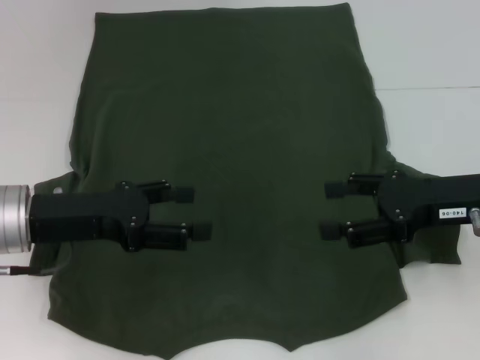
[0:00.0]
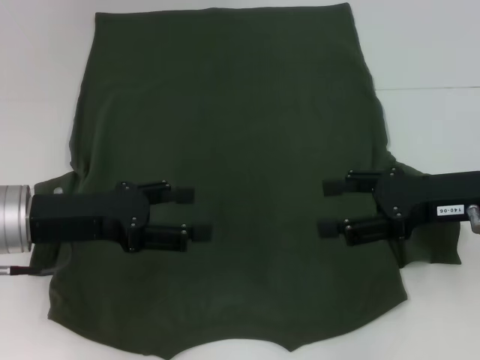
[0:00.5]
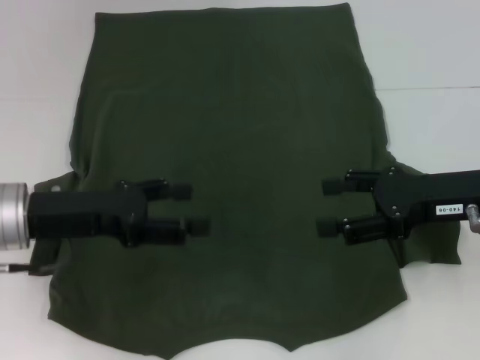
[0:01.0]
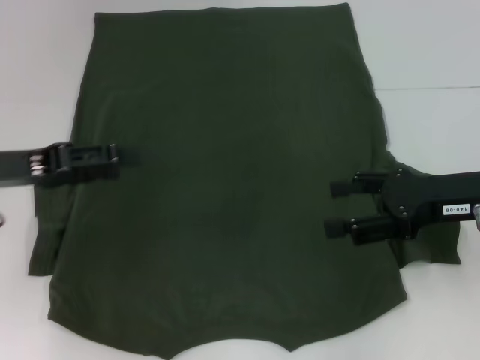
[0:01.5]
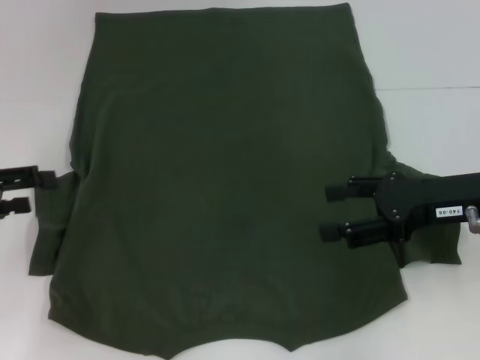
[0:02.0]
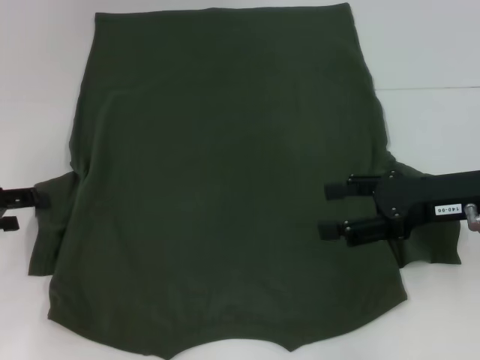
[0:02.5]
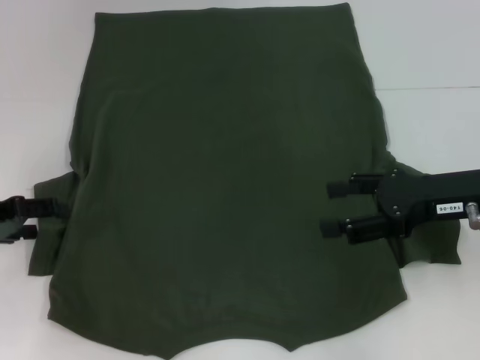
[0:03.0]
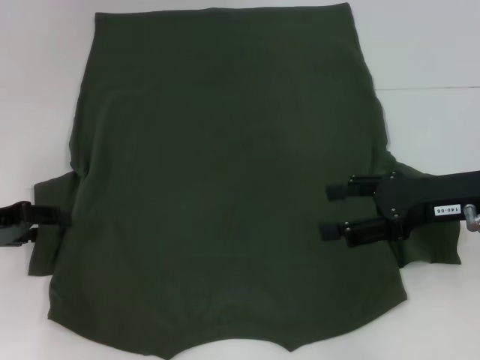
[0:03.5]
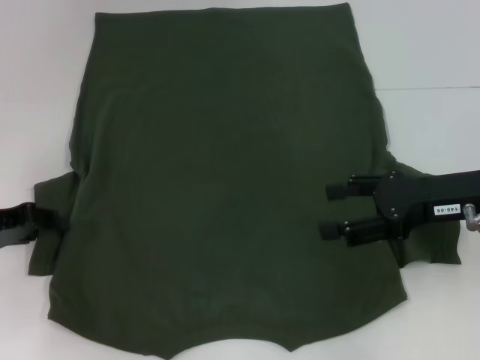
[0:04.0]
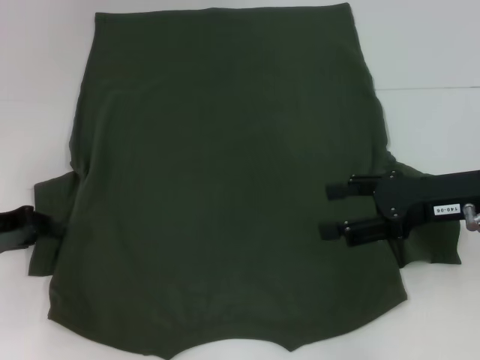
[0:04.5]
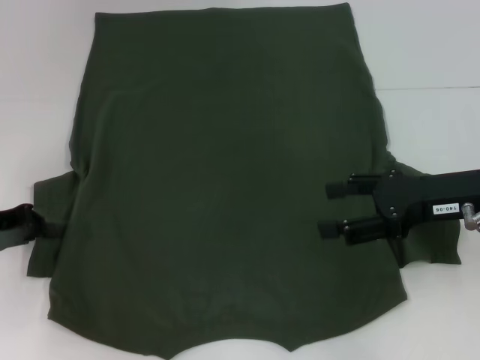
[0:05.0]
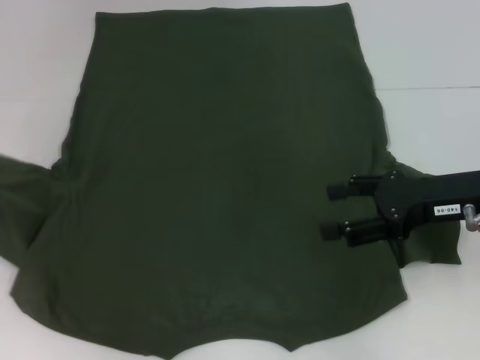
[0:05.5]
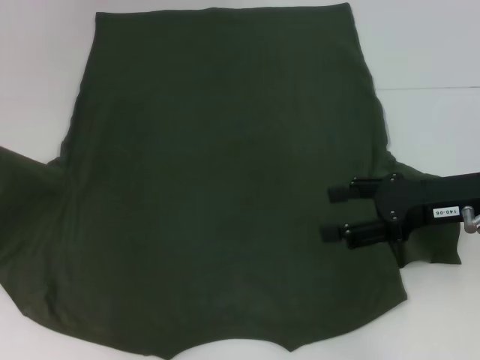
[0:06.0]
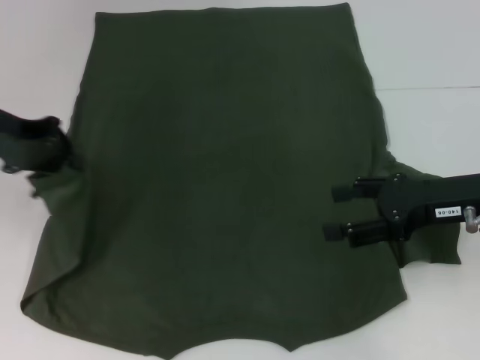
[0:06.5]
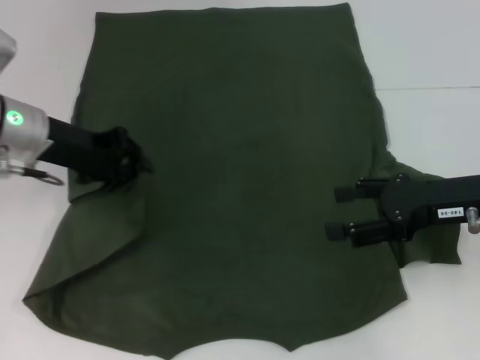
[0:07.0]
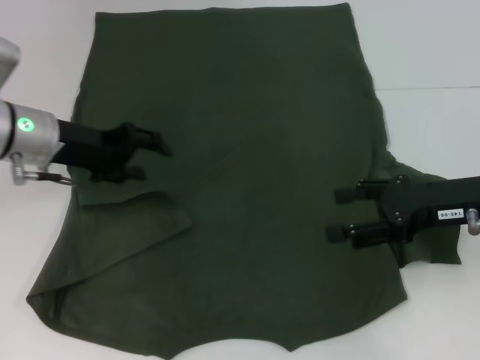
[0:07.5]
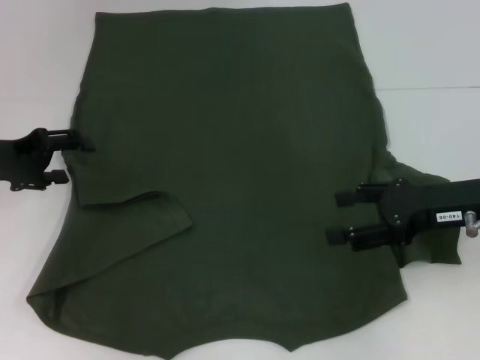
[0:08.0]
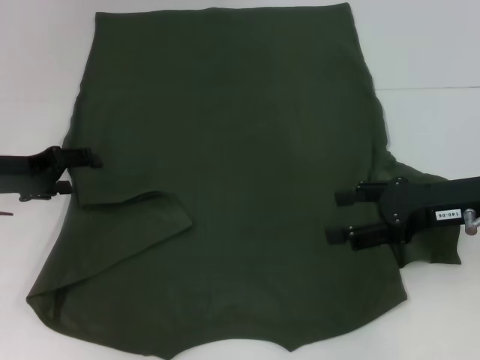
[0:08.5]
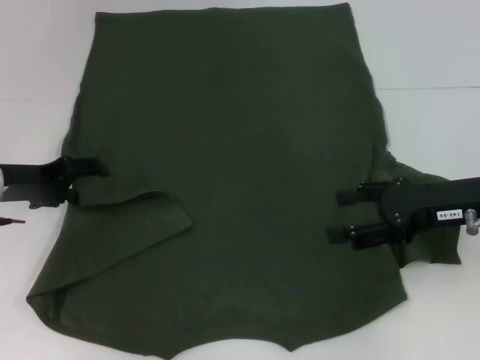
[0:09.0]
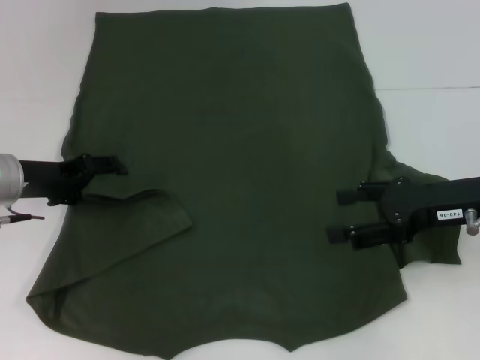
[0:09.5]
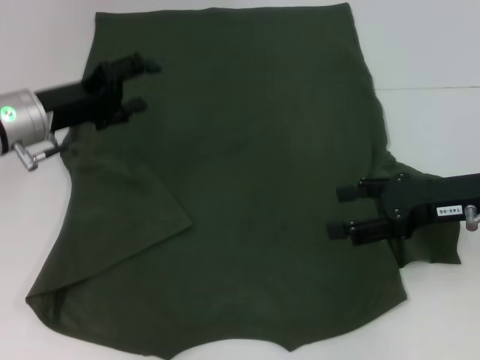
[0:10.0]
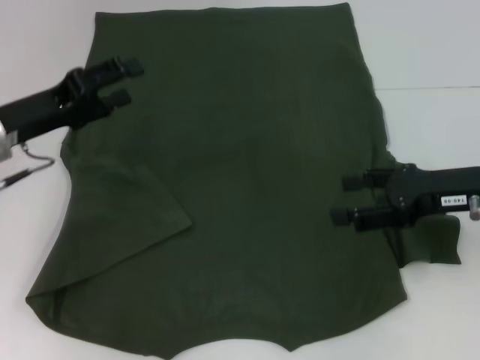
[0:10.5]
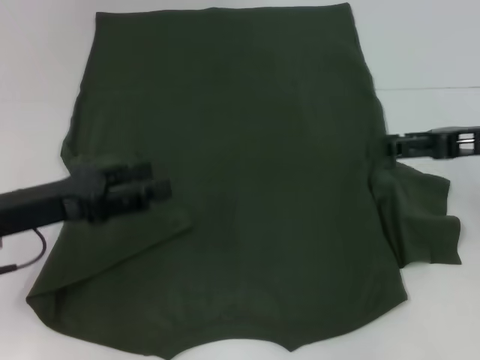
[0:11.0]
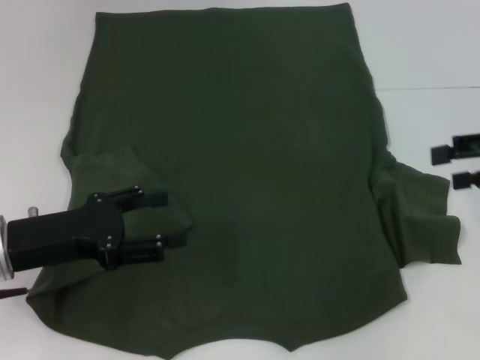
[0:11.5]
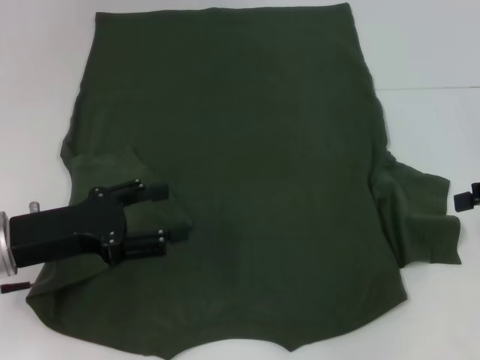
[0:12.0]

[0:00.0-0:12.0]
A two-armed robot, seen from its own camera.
Step, 0:00.0 to 0:07.0: Fold the bottom left sleeve with your left hand.
0:00.0 to 0:02.0: The left gripper goes some 10 cm to the left.
0:02.0 to 0:04.0: The left gripper moves downward, about 5 cm, and closes up.
0:04.0 to 0:06.0: The left gripper heads upward, covering about 10 cm, and closes its fingers.
0:06.0 to 0:08.0: The left gripper shifts roughly 10 cm downward and to the right, and opens up.
0:08.0 to 0:10.0: The left gripper moves to the right, roughly 5 cm.
0:10.0 to 0:12.0: The left gripper shifts about 10 cm backward, while the right gripper moves to the right, approximately 10 cm.

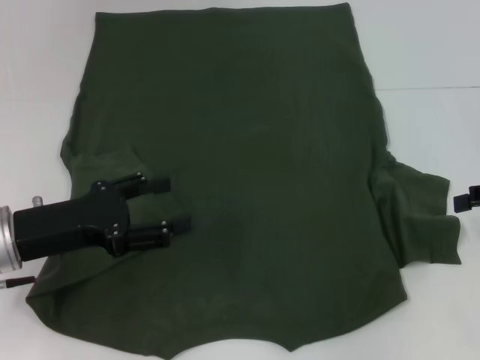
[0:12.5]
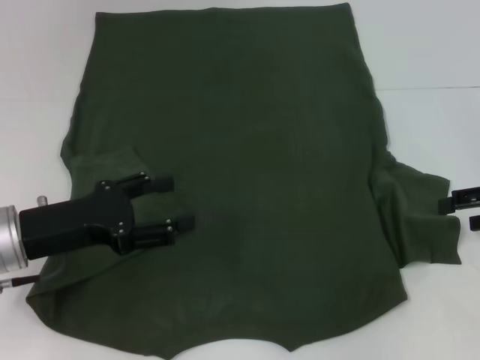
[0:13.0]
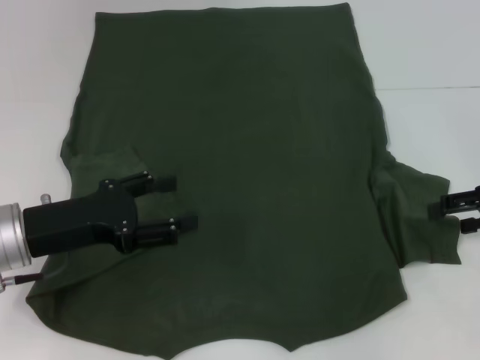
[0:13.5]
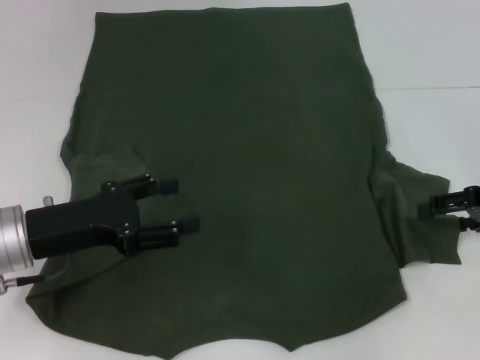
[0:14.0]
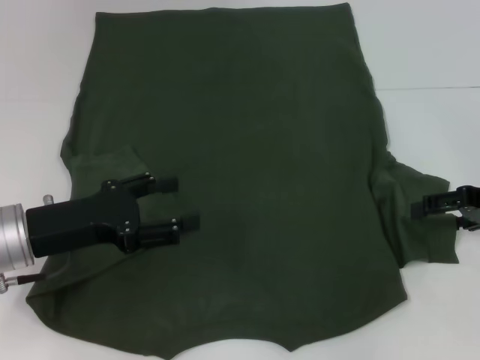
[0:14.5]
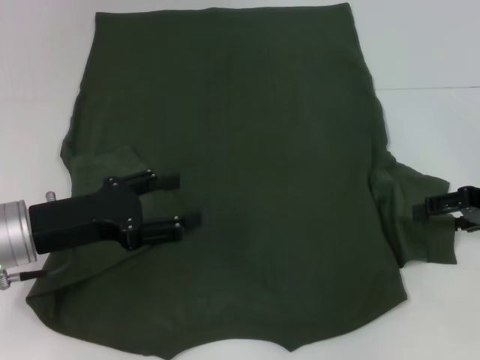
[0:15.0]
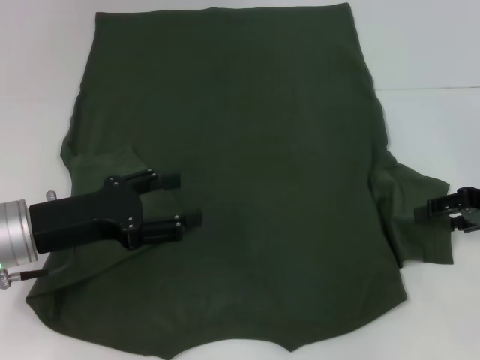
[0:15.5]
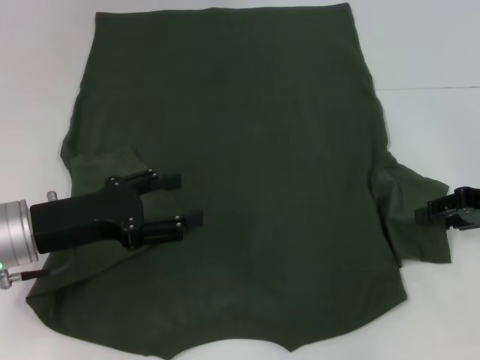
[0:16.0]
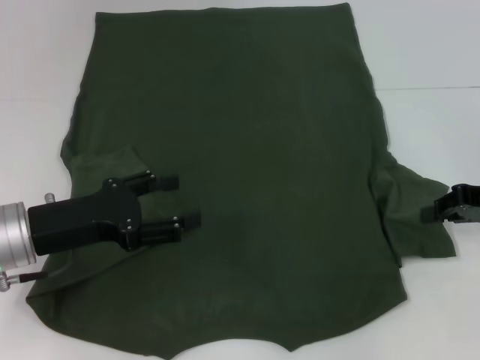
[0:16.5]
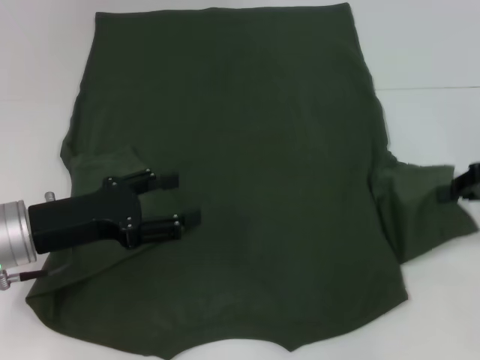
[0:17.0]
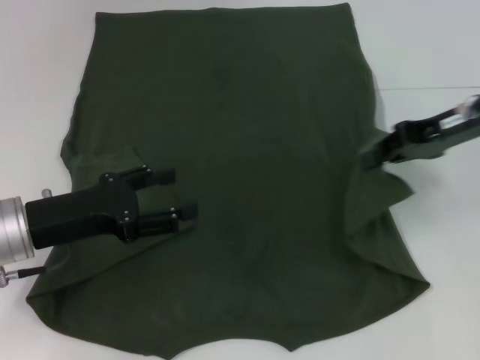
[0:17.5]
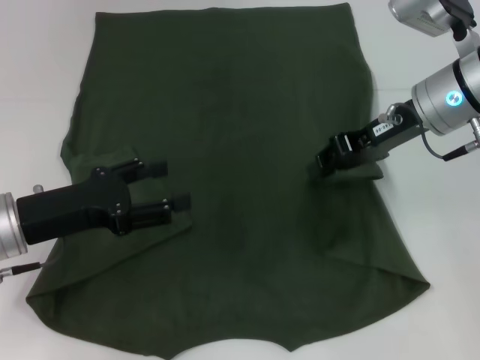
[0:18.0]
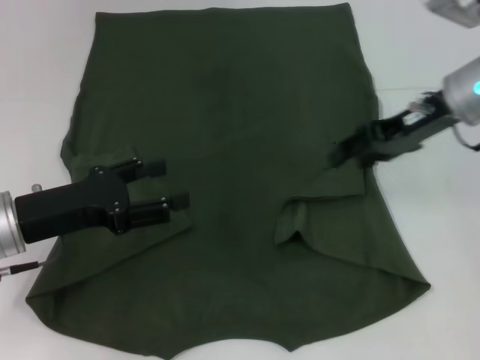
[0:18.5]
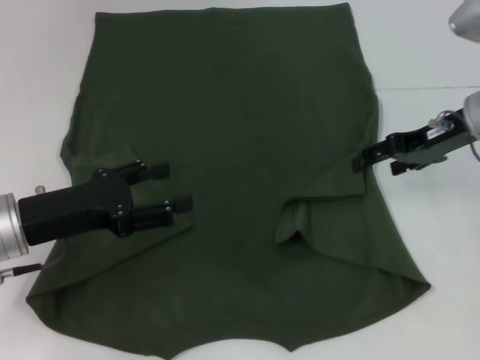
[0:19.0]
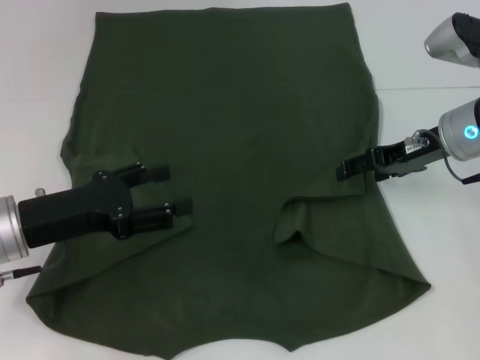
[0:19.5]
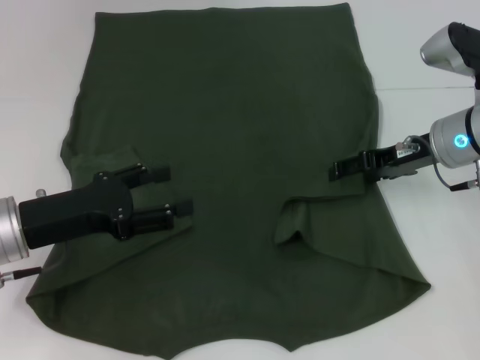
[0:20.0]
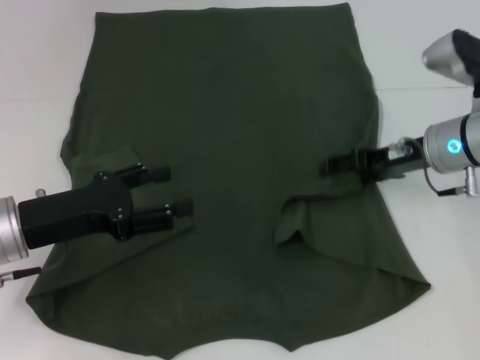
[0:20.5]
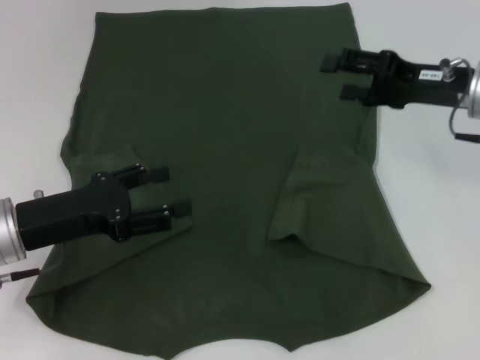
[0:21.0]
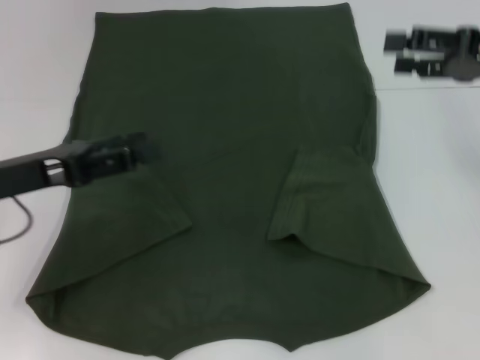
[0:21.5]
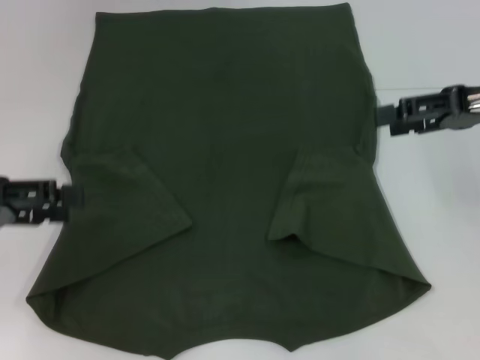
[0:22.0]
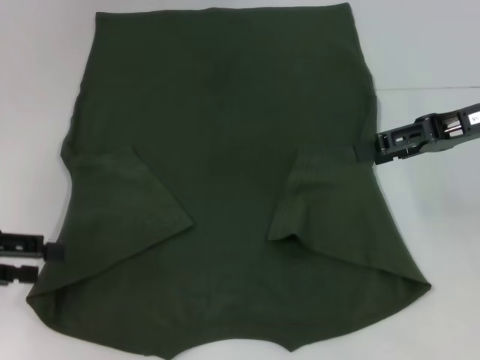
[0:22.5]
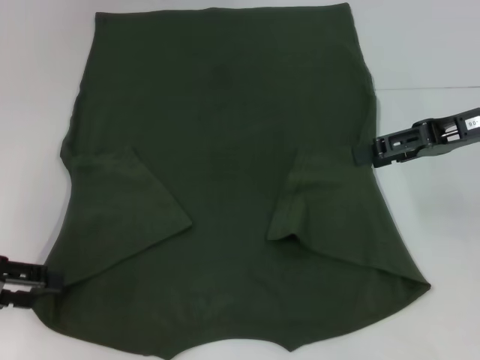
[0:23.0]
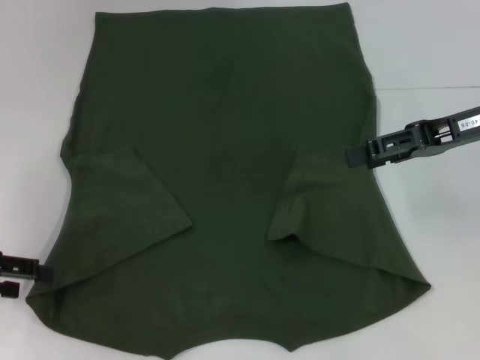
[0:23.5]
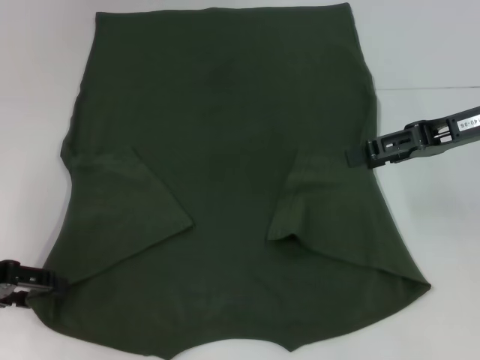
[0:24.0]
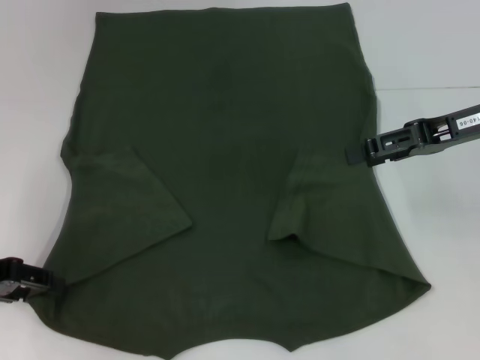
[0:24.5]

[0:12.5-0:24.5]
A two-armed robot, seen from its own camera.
Step, 0:12.5 to 0:20.5: Fold the bottom right sleeve with your right hand.
0:12.5 to 0:14.5: The right gripper moves about 5 cm.
0:14.5 to 0:16.5: The right gripper closes.
0:16.5 to 0:18.5: The right gripper moves to the left, upward and forward, some 15 cm.
0:18.5 to 0:20.5: The right gripper shifts approximately 10 cm downward, and opens its fingers.
0:20.5 to 0:22.5: The left gripper goes approximately 10 cm to the left. Meanwhile the right gripper goes roughly 10 cm upward and to the right.
0:22.5 to 0:24.5: There are only small adjustments of the grippers.

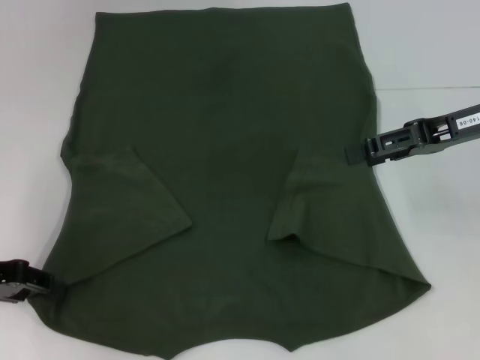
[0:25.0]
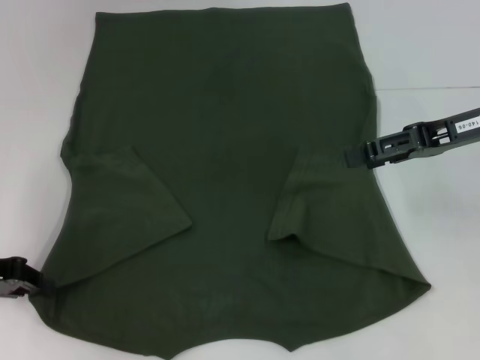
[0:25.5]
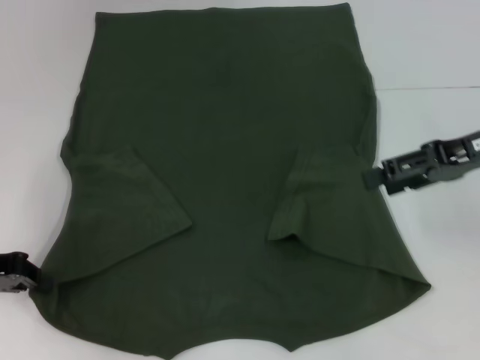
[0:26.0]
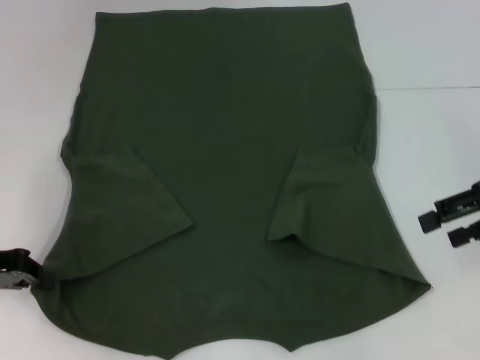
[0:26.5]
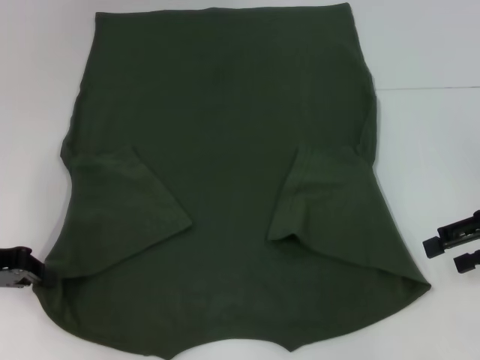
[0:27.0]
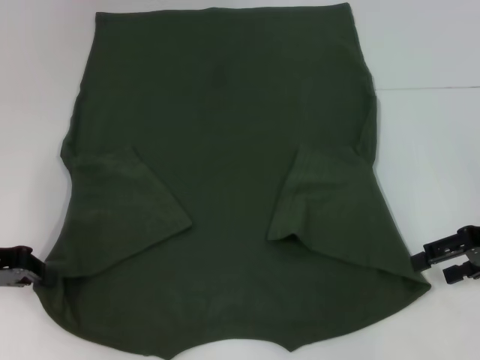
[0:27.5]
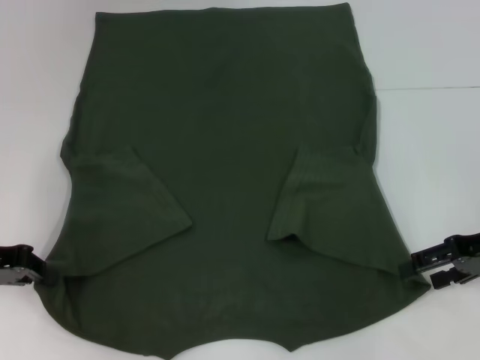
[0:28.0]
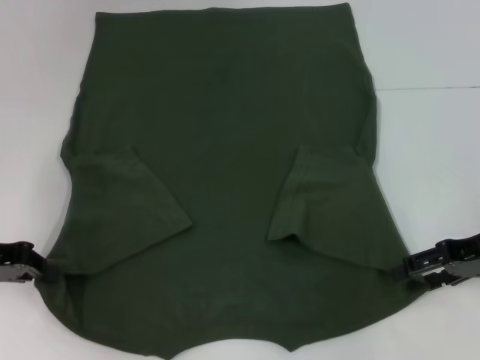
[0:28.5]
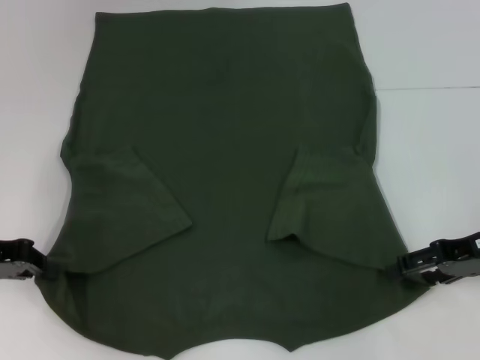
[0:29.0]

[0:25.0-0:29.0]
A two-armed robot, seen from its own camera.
0:25.0 to 0:27.0: The right gripper shifts some 5 cm to the right. The left gripper closes.
0:27.0 to 0:29.0: The right gripper moves roughly 5 cm.
